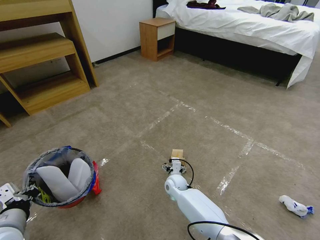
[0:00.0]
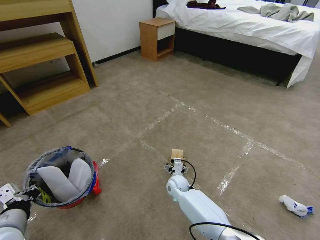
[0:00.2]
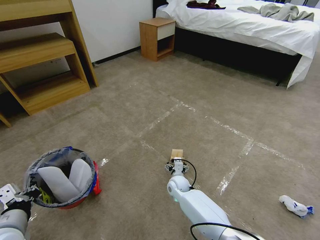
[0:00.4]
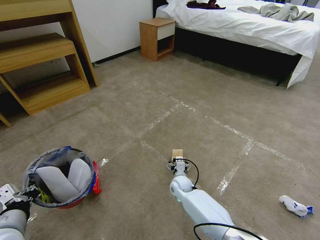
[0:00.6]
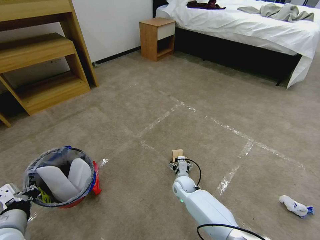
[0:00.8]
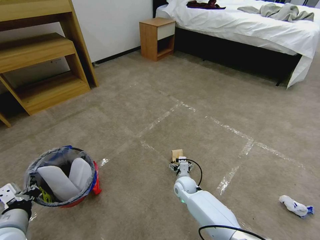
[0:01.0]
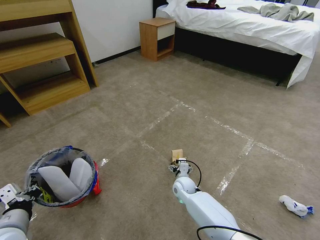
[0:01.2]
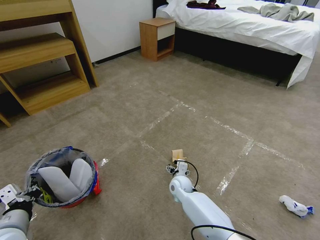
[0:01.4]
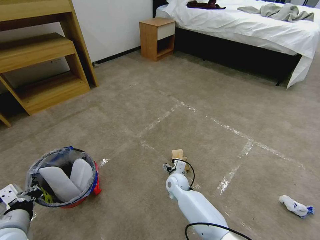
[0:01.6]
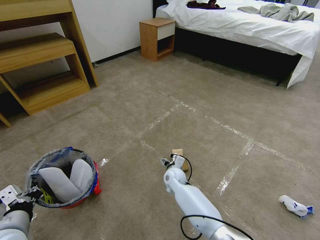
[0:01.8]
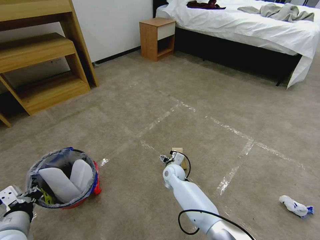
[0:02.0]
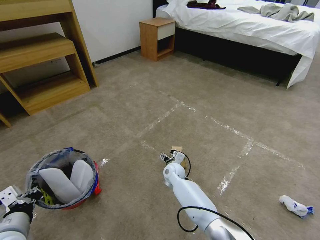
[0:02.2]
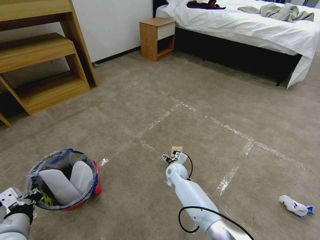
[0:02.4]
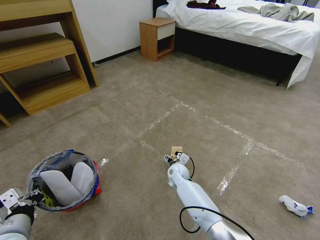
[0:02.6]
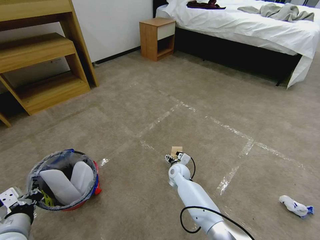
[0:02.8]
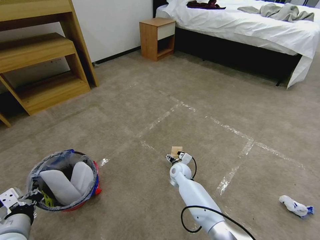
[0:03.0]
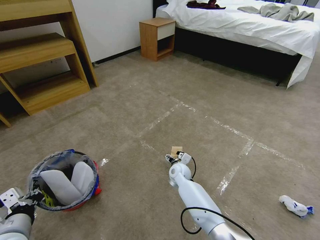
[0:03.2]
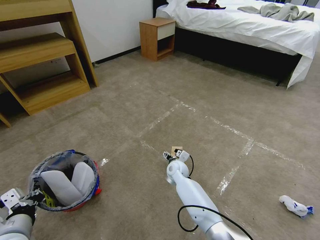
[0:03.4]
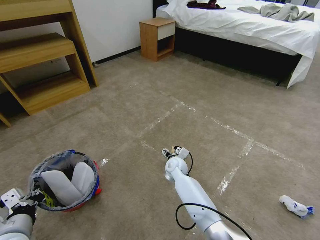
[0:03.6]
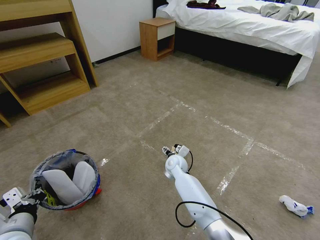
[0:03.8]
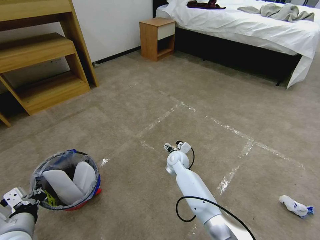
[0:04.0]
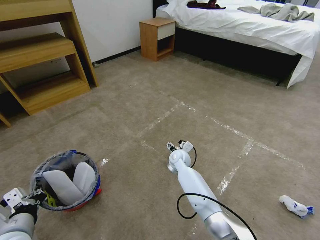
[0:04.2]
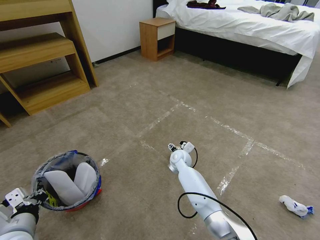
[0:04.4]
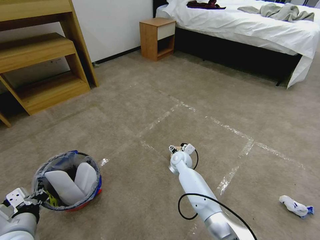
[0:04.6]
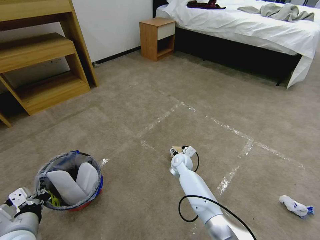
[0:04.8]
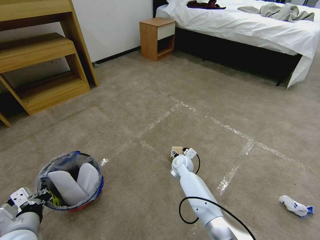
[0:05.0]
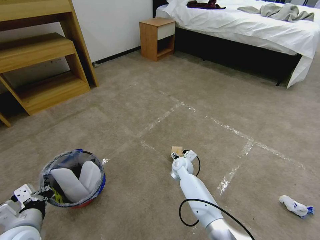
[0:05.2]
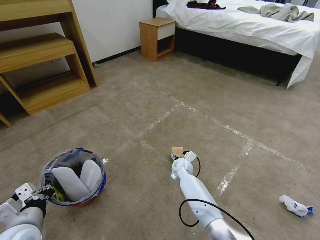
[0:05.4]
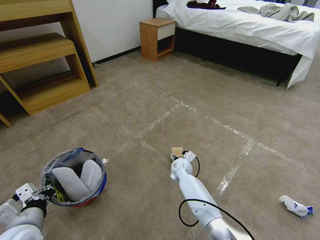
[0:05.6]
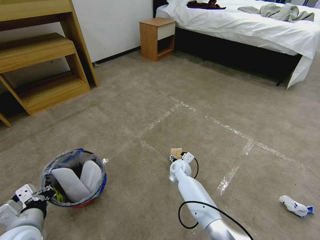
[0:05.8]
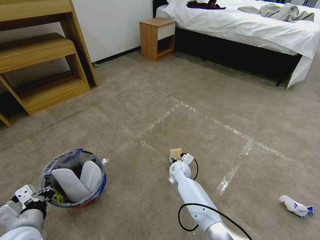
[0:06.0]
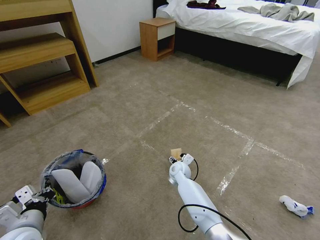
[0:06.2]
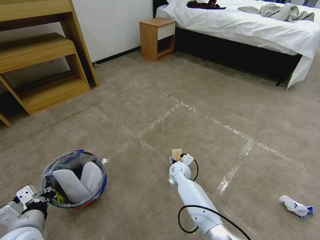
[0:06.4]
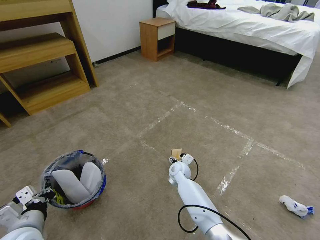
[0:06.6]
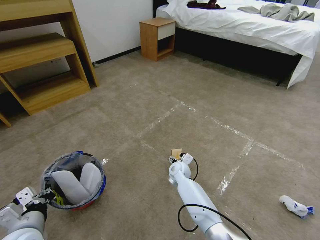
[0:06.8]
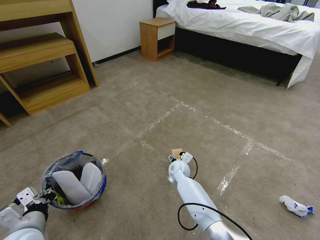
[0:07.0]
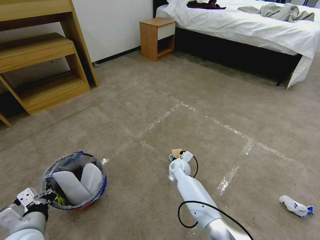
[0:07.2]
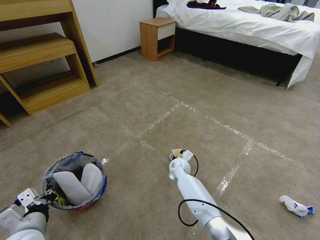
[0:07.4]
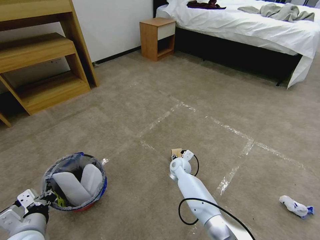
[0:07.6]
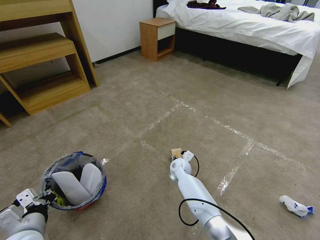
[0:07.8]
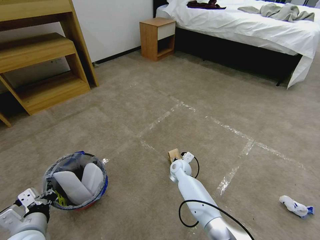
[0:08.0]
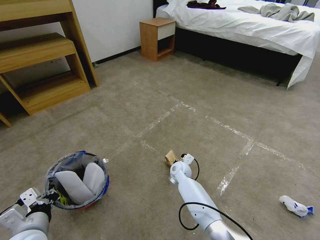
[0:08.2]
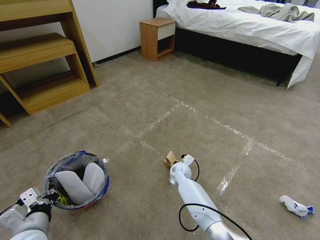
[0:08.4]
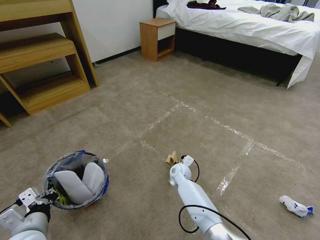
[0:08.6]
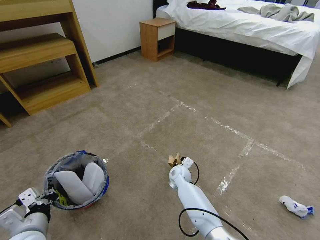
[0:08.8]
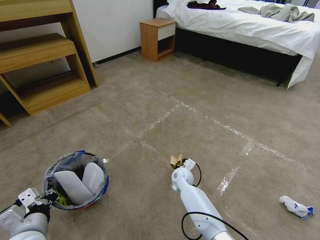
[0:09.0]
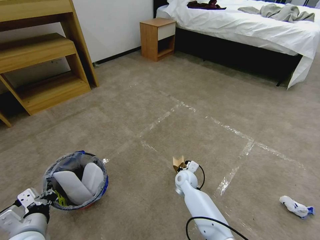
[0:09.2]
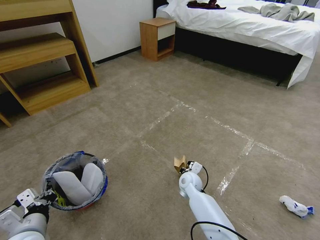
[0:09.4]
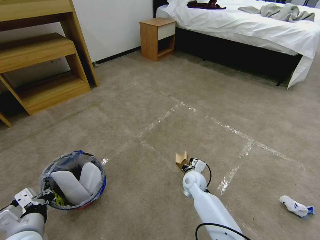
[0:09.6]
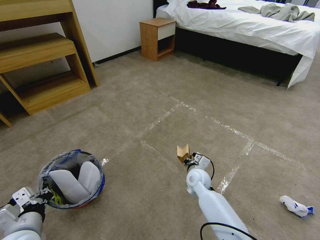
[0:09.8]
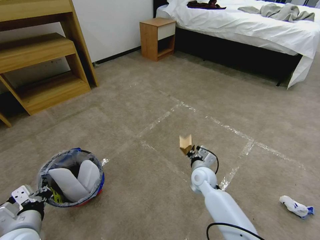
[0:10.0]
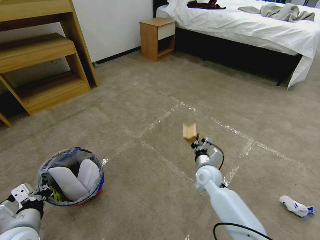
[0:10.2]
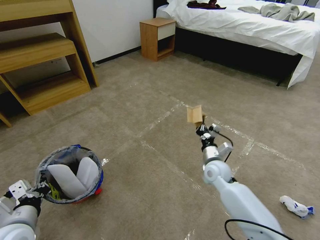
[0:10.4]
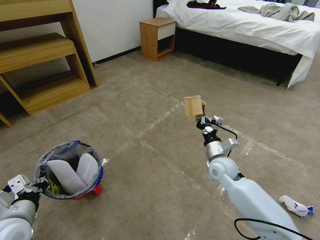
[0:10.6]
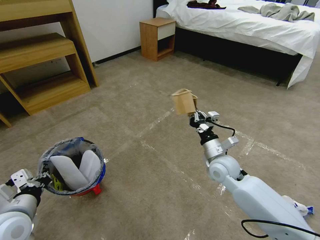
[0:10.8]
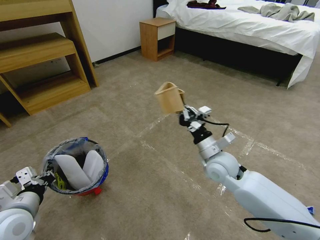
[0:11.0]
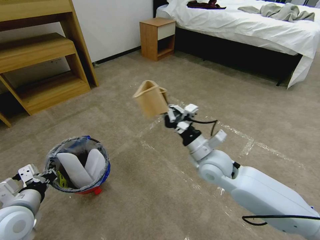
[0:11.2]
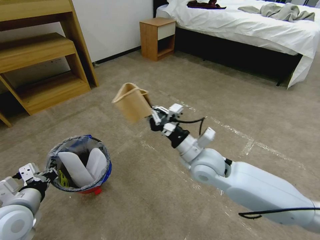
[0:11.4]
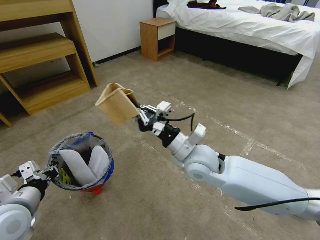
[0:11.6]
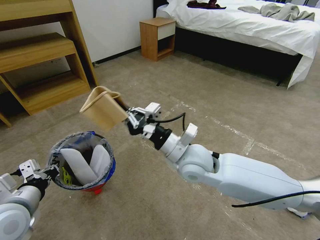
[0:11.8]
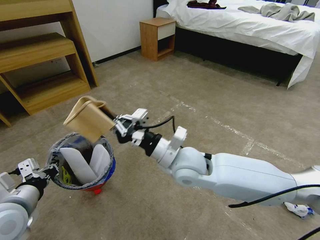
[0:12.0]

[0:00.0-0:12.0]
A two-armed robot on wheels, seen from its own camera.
Task of the whole recording: Pick up the trash bin and place the garbage on the floor into it.
0:00.0 to 0:01.6: The grippers make only small movements.
0:01.6 to 0:03.0: The right gripper changes place by roughly 5 cm.
0:03.0 to 0:04.4: The right gripper goes roughly 5 cm upward.
0:04.4 to 0:06.0: The right gripper changes place by about 5 cm.
0:06.0 to 0:07.6: There are only small adjustments of the grippers.
0:07.6 to 0:09.0: The right gripper closes its fingers.
0:09.0 to 0:10.4: The right gripper moves to the right and upward, about 15 cm.
0:10.4 to 0:12.0: The right gripper goes roughly 25 cm upward, to the left and backward; the left gripper shifts some 5 cm upward.

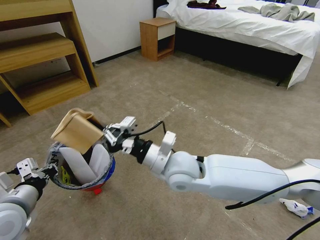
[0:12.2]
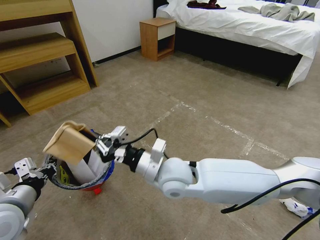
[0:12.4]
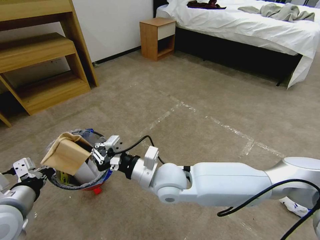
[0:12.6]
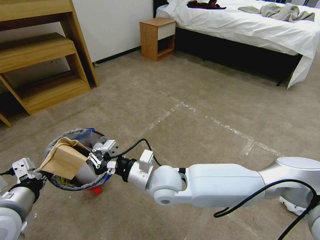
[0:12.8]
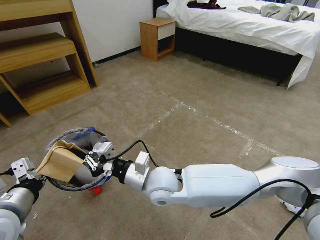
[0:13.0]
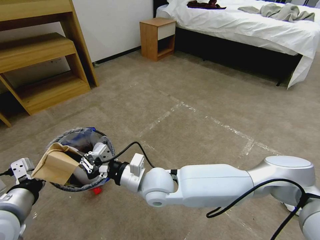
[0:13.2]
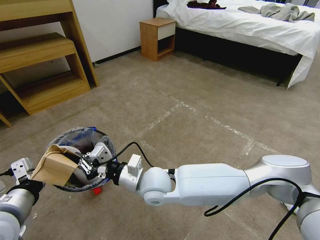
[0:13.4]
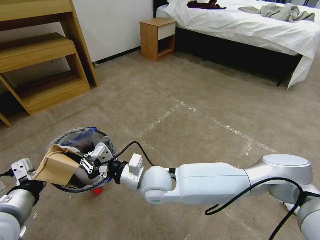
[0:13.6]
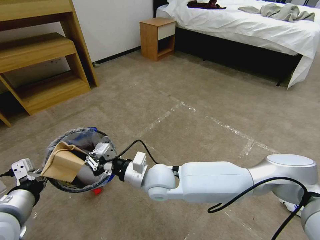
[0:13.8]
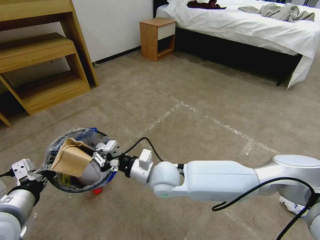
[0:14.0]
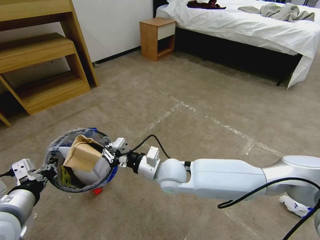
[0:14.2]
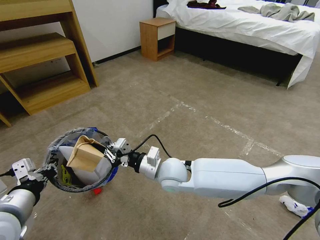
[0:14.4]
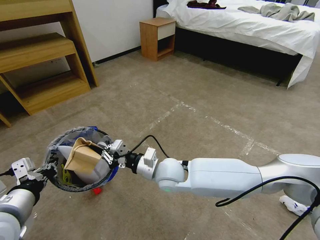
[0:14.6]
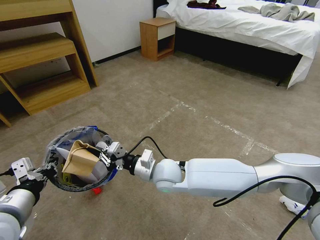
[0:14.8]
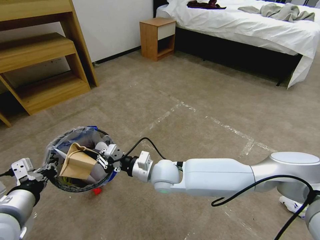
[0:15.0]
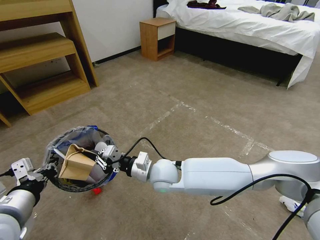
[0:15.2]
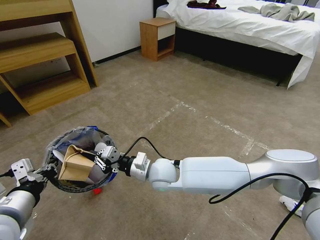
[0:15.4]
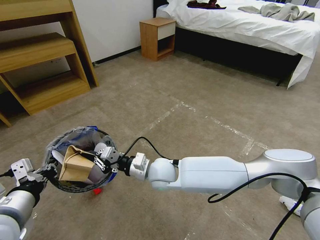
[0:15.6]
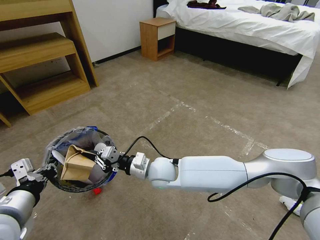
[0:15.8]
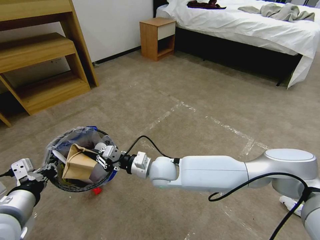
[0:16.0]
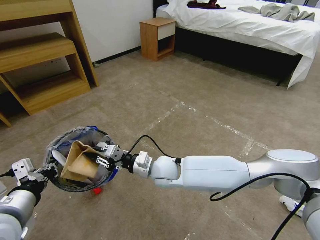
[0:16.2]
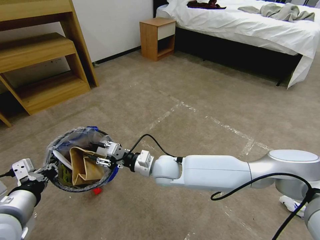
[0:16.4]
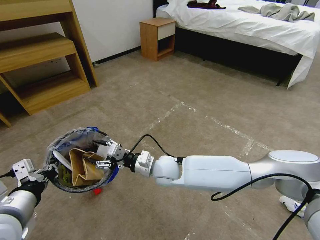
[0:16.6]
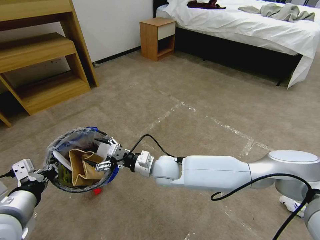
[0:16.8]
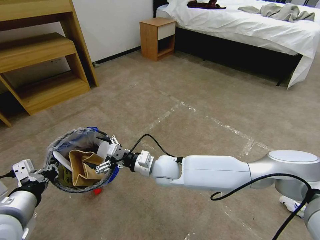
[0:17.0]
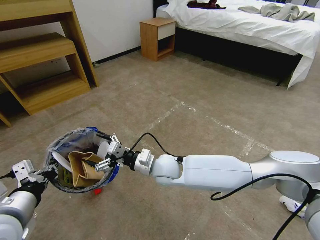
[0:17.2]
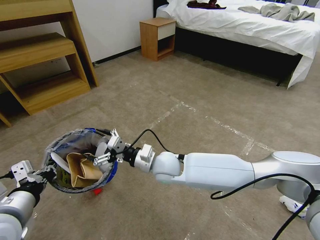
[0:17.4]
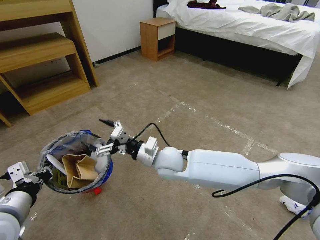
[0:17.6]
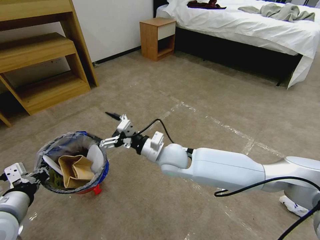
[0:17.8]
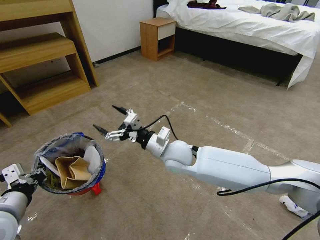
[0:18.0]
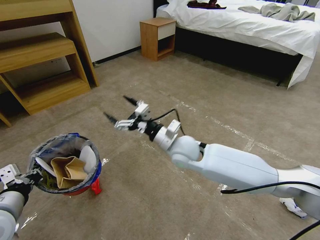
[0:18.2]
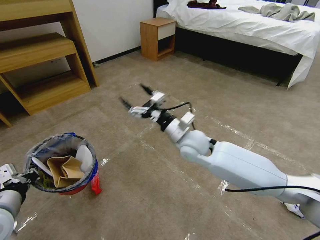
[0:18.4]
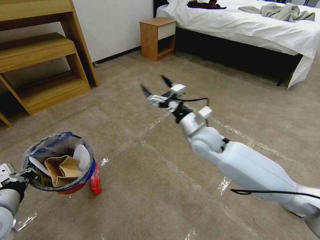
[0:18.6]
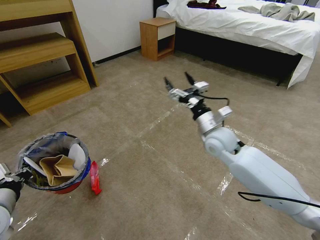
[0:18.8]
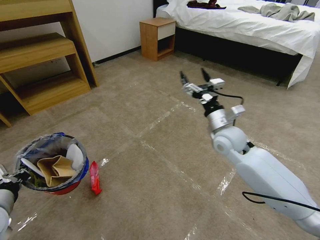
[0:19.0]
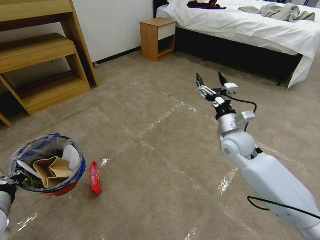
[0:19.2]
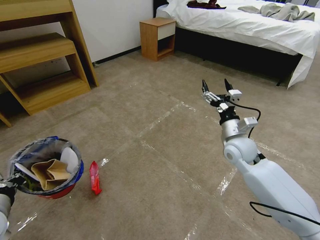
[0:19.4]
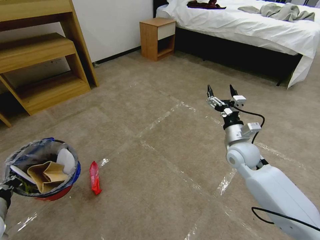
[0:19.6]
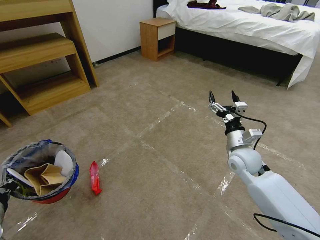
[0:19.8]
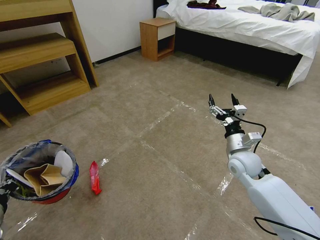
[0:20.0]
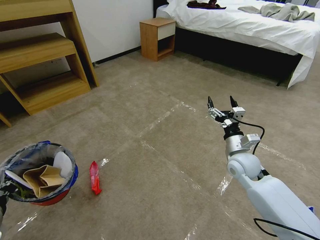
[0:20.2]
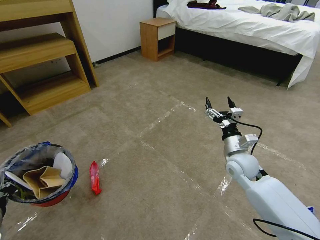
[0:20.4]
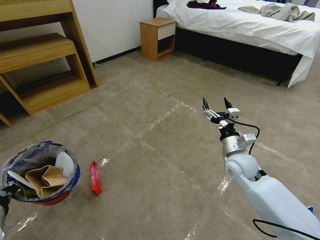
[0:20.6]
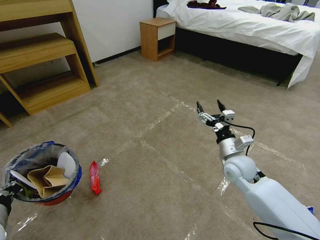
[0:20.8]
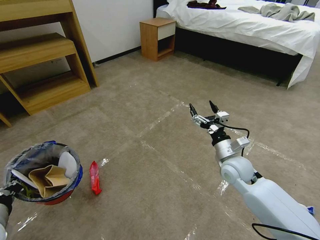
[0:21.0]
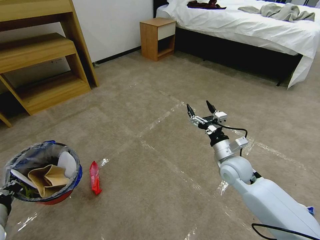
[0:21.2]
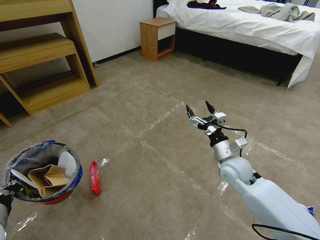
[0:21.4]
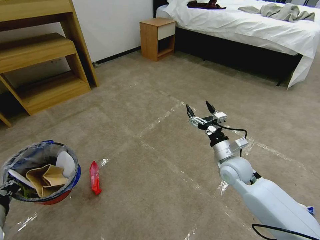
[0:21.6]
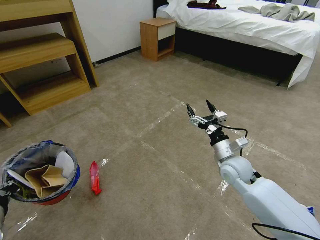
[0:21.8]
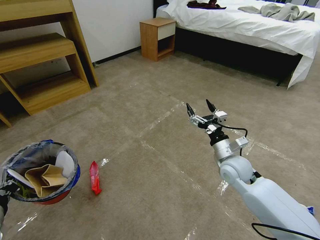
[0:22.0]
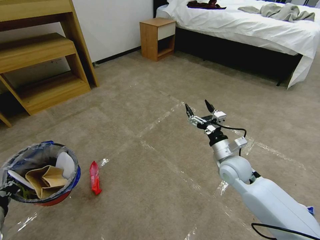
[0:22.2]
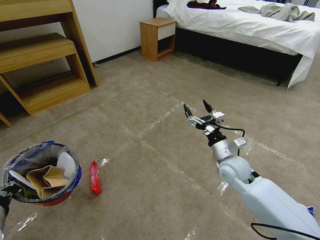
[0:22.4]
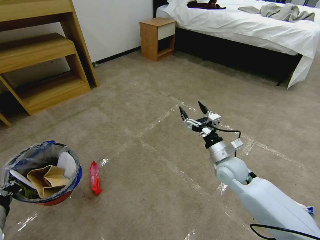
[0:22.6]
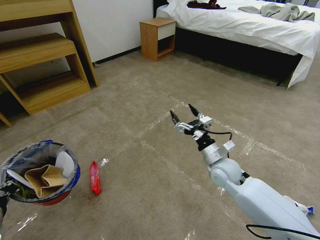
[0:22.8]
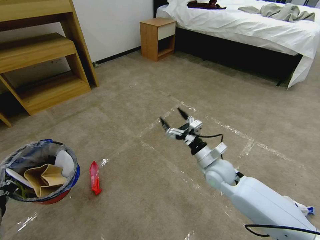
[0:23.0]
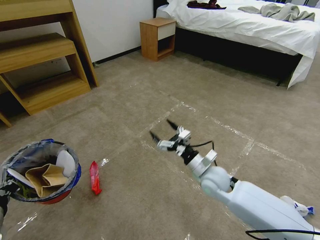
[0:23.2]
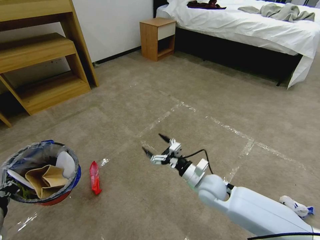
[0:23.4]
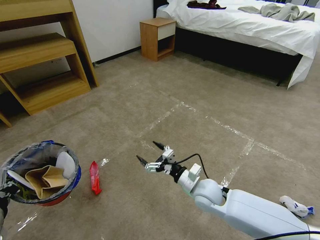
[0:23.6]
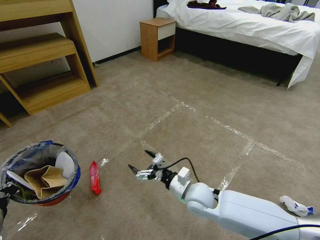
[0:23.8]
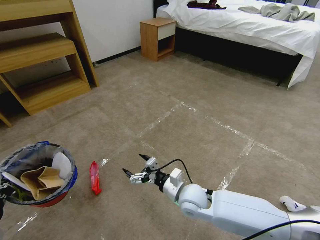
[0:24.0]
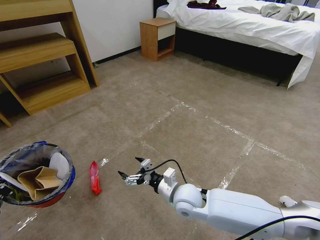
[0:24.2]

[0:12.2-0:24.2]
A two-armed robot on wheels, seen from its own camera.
Task of the whole recording: Pick up the trash bin and place the garbage on the floor into it.
0:12.2 to 0:13.8: The right gripper is displaced downward and to the left by roughly 10 cm.
0:13.8 to 0:15.2: There are only small adjustments of the grippers.
0:15.2 to 0:16.6: The right gripper opens up.
0:16.6 to 0:18.2: The left gripper moves some 5 cm. Meanwhile the right gripper moves upward and to the right, roughly 10 cm.
0:18.2 to 0:19.8: The right gripper moves to the right, about 20 cm. The left gripper moves some 5 cm.
0:19.8 to 0:21.2: The grippers stay close to where they were, moving slightly.
0:21.2 to 0:22.6: The grippers move only a little.
0:22.6 to 0:24.2: The right gripper shifts roughly 15 cm to the left and backward.
